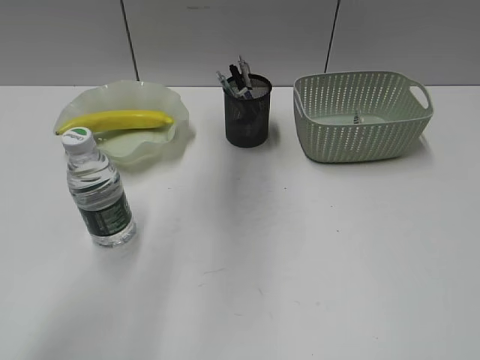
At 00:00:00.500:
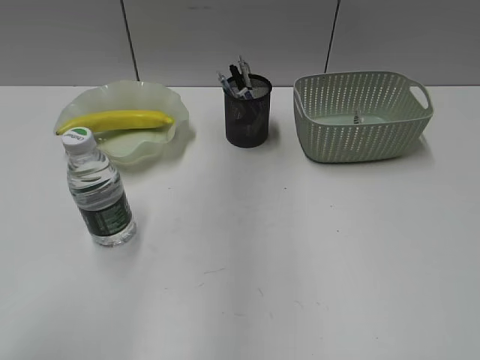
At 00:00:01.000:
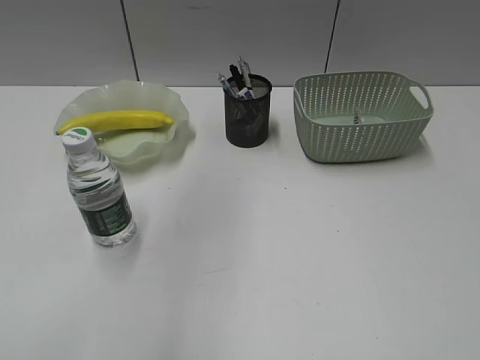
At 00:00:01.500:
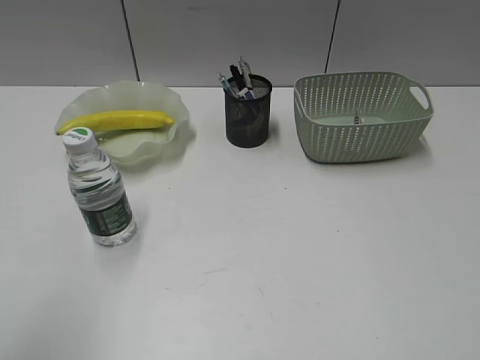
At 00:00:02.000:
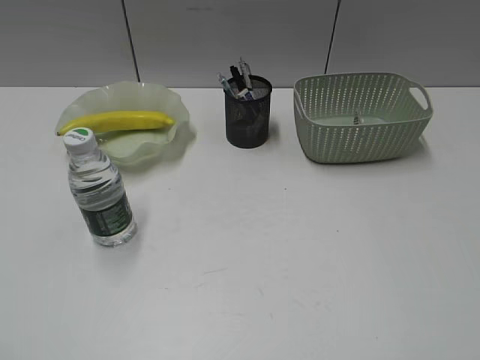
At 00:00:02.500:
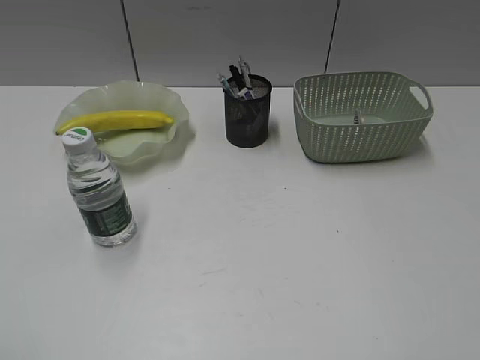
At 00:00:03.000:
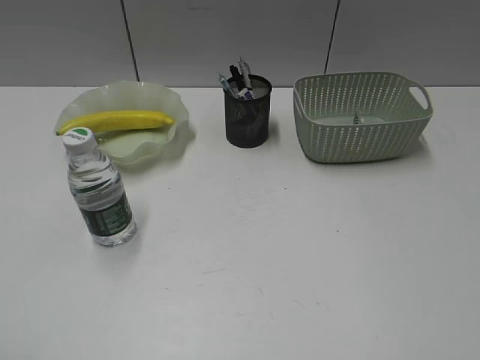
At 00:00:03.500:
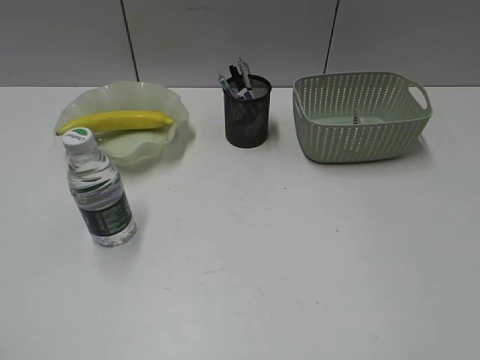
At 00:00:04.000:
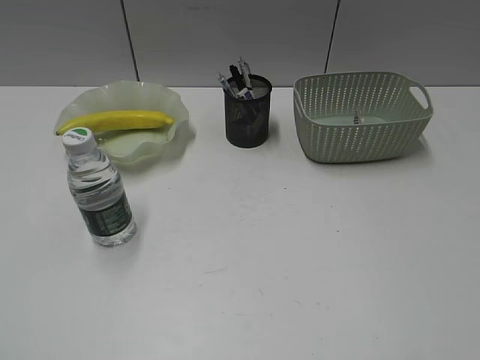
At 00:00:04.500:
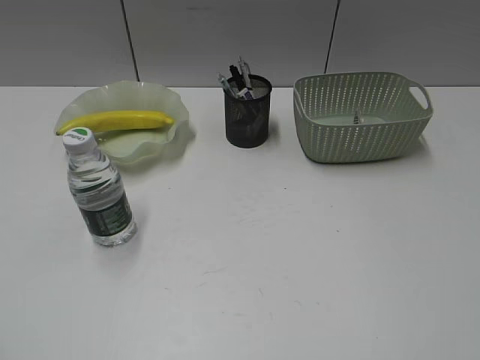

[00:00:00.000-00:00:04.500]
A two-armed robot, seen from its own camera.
00:00:00.000 to 00:00:02.000: The left gripper shifts some 50 cm backward and to the left.
